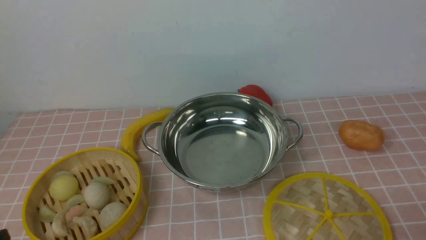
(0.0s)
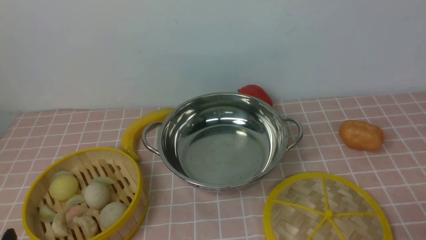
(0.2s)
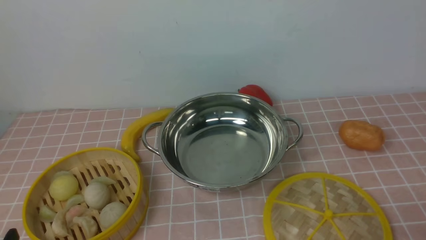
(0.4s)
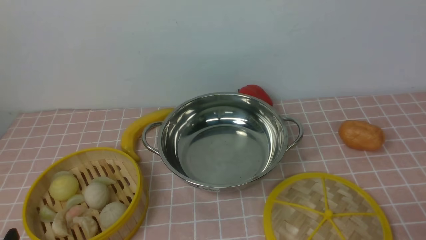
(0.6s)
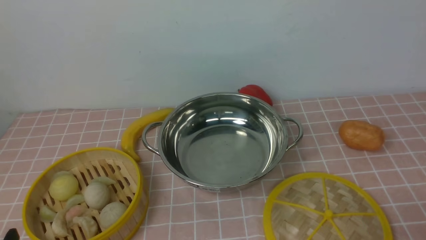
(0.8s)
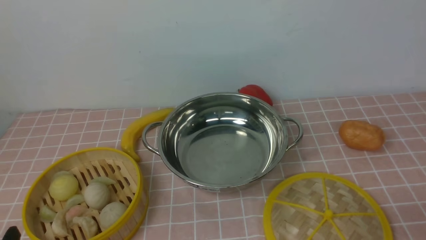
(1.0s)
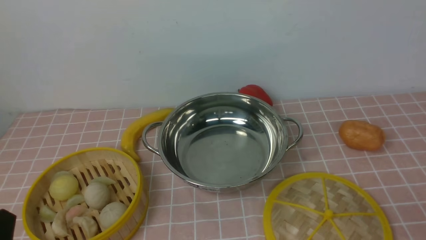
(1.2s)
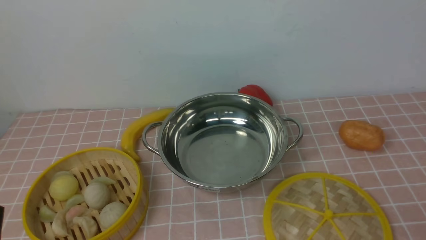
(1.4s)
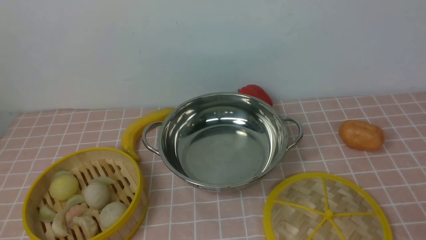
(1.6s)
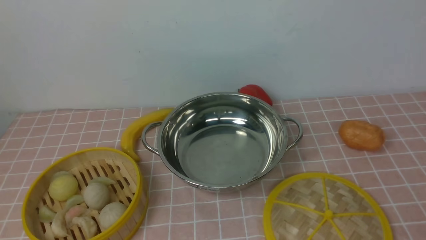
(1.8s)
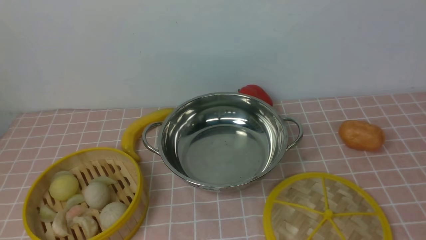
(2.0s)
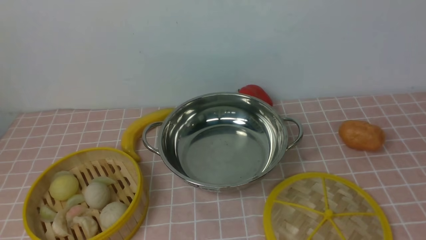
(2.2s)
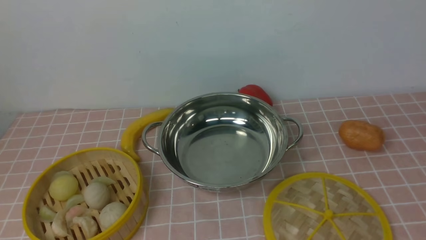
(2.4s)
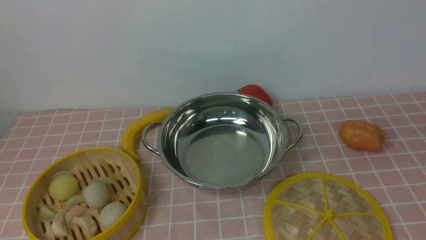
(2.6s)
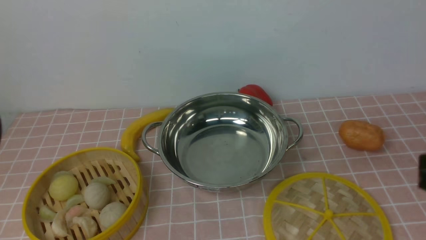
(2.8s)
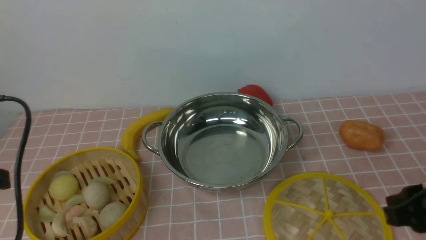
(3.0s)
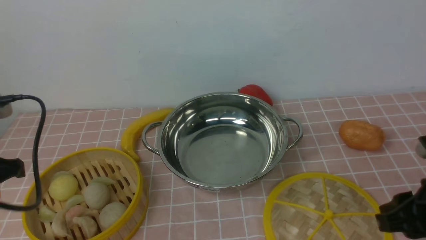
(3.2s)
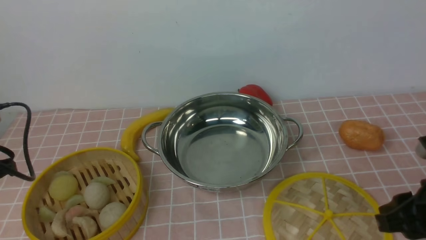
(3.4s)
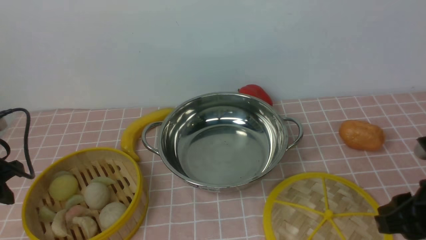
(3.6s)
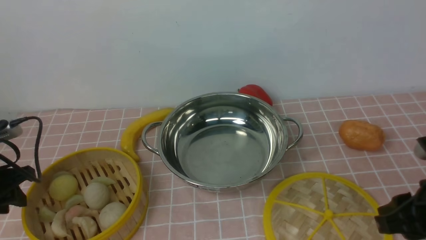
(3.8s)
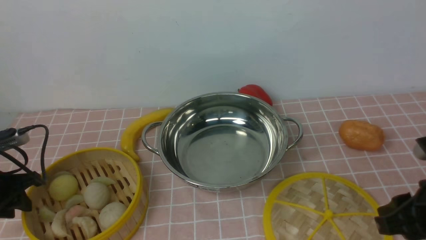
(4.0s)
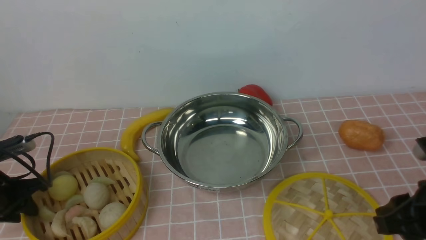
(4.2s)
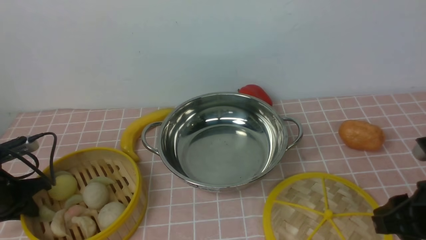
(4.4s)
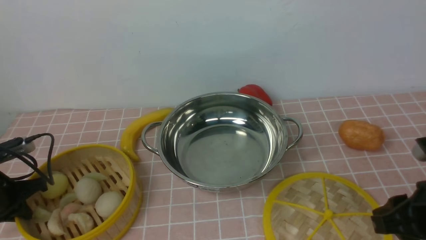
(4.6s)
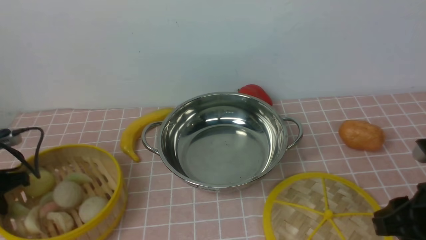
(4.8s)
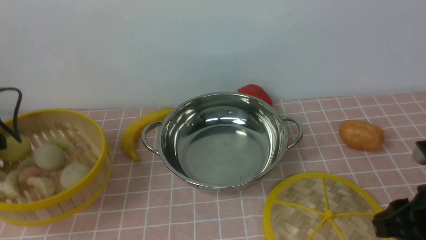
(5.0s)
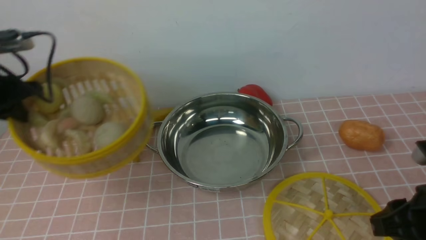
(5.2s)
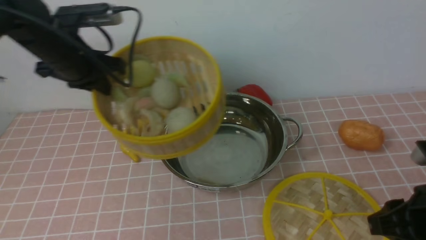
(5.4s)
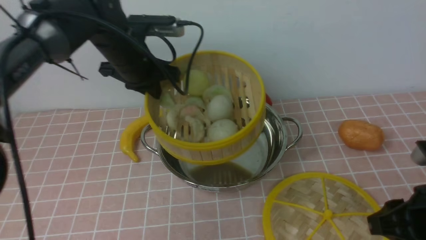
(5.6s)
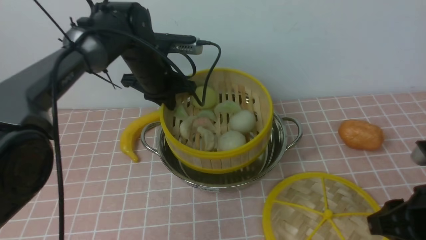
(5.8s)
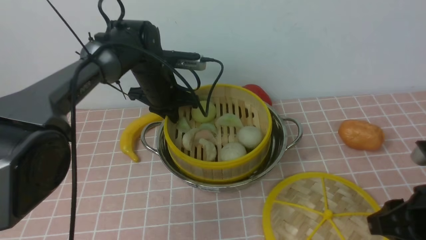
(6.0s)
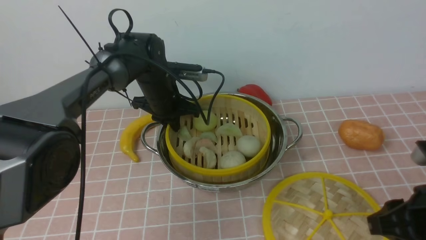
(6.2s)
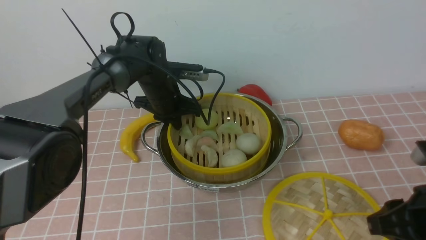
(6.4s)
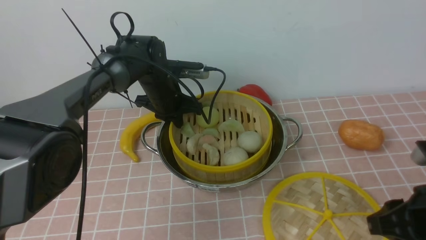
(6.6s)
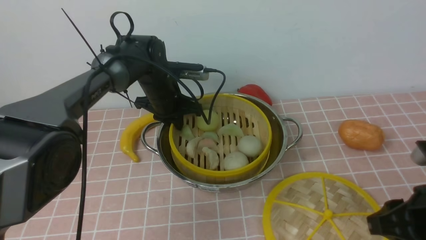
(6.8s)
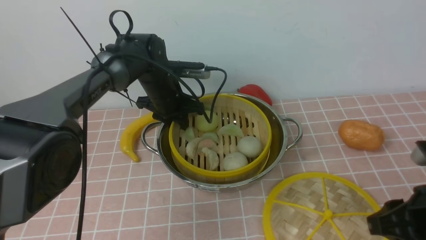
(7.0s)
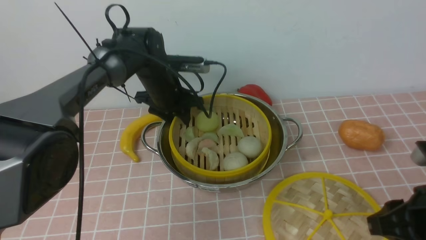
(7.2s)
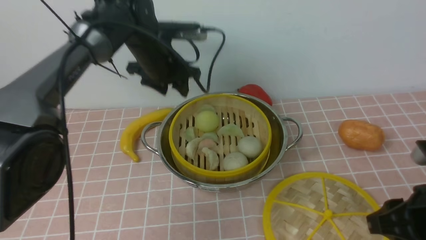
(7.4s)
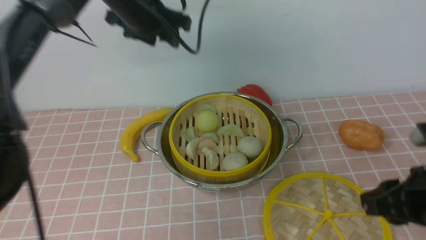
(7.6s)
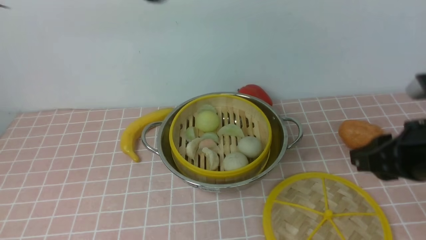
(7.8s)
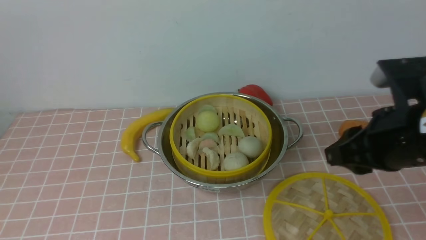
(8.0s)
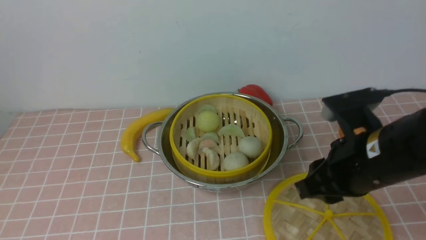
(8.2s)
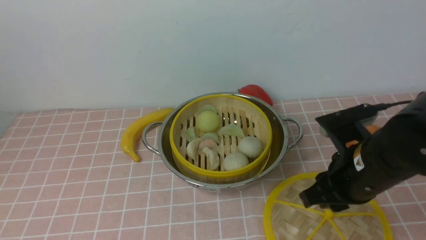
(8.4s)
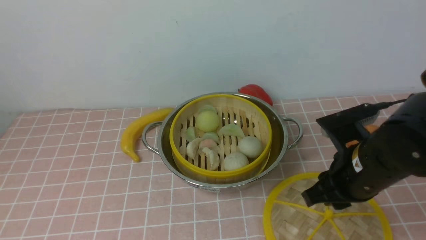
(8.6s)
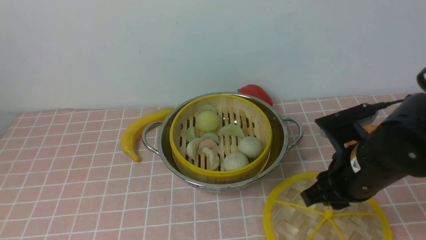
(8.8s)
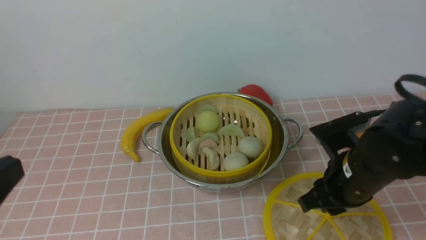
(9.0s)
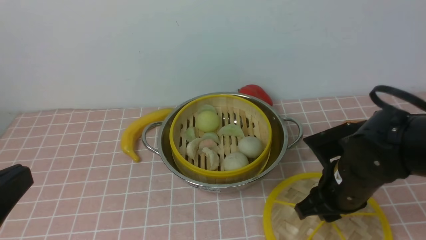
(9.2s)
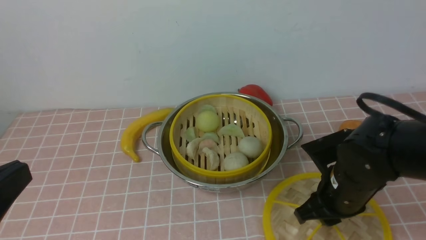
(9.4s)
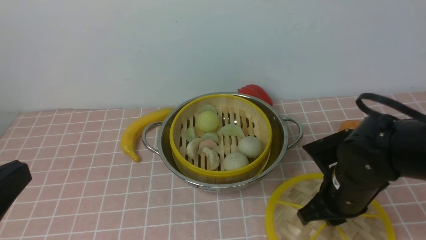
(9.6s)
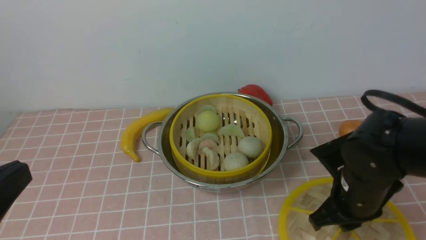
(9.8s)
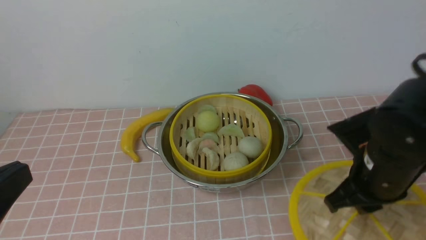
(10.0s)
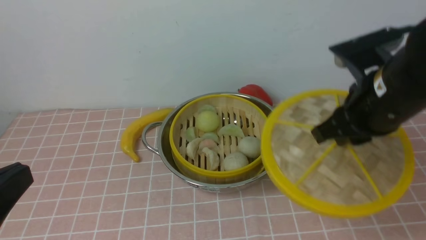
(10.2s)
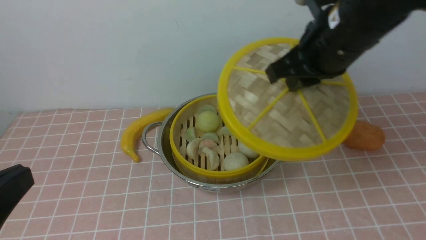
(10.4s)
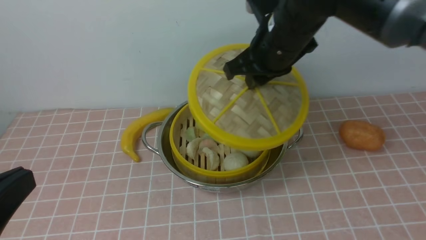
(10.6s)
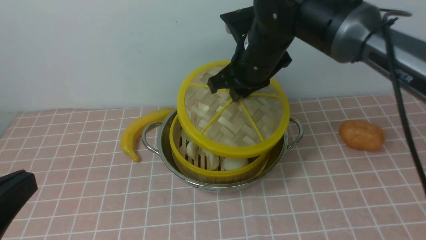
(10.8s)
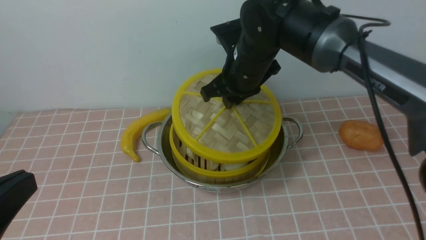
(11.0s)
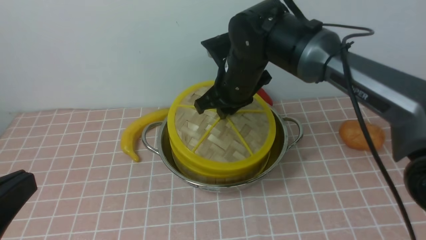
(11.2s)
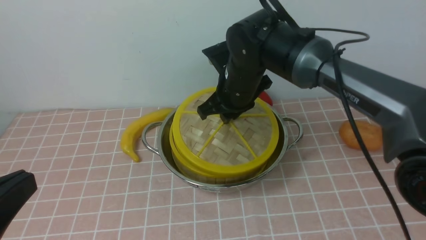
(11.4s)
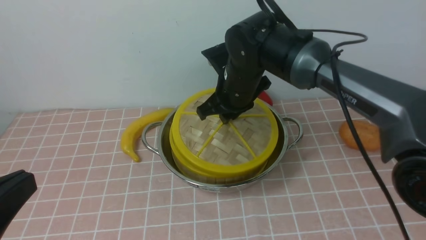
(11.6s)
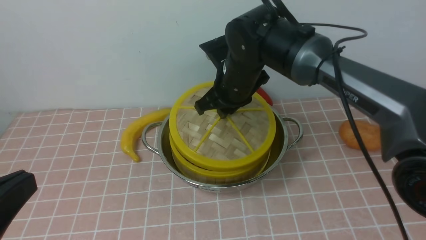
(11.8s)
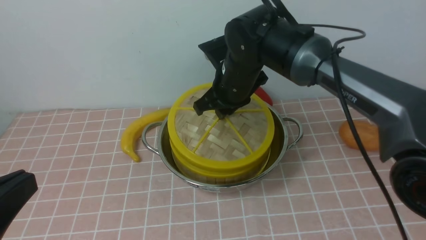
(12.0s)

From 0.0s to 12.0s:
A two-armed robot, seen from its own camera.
Task of the whole recording: place the steamer in the pot on the pink tablecloth, and put the lid on the steamer.
Step, from 0.0s to 4.8s: use the left arm to lift the steamer closest to it.
Step, from 5.0s to 7.2s: use the left arm to put the steamer into the iron steamer pot in the middle.
Step, from 7.4s to 9.8s: use the right arm to lift the lid of the steamer.
From 1.6s to 3.0s: The right gripper travels forward and to the left by some 10 cm, and travels upward and back again, approximately 15 cm each way. Meanwhile the left gripper is displaced forward and upward by roughly 15 cm.
From 3.0s to 4.4s: The left gripper is displaced downward, forward and to the left by some 25 cm, and closes up.
From 4.4s to 6.0s: The left gripper is displaced to the right and forward by some 30 cm.
From 6.0s to 7.6s: The left gripper is displaced upward by roughly 20 cm, and opens.
From 7.6s to 9.0s: The left gripper travels backward by roughly 35 cm, and closes up; the right gripper moves to the left, forward and downward, some 10 cm.
From 9.0s to 10.4s: The right gripper shifts roughly 15 cm upward and forward.
From 10.4s to 12.0s: The right gripper goes approximately 15 cm downward, to the left and forward.

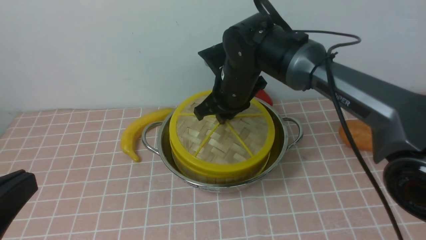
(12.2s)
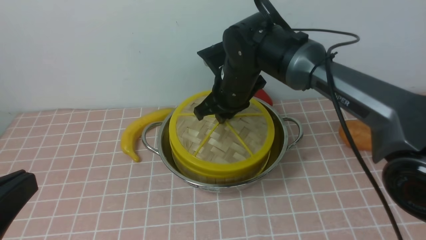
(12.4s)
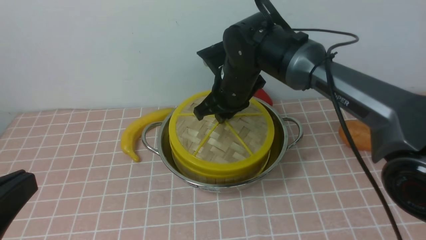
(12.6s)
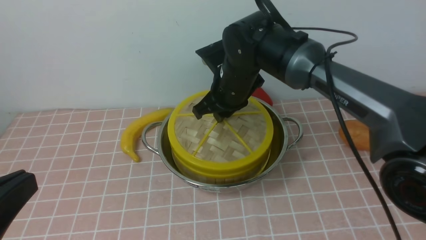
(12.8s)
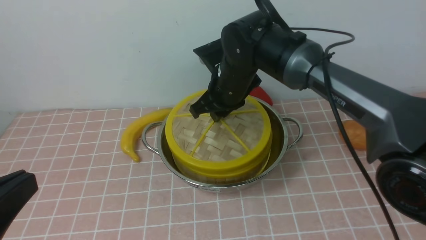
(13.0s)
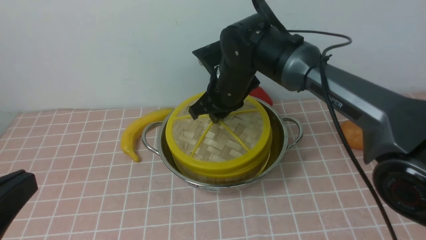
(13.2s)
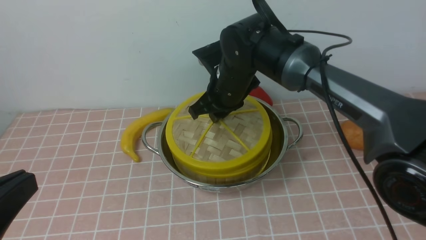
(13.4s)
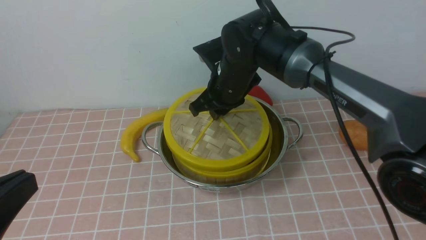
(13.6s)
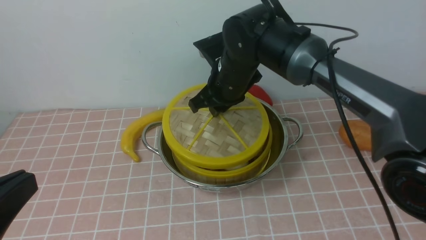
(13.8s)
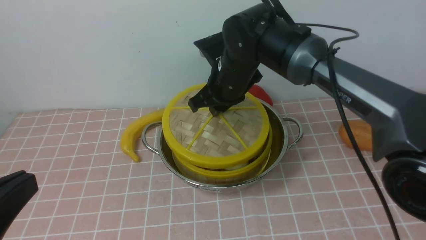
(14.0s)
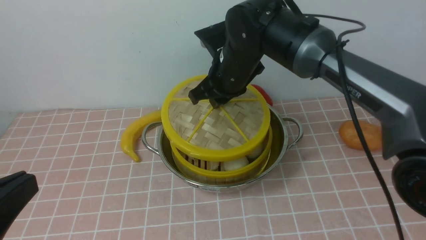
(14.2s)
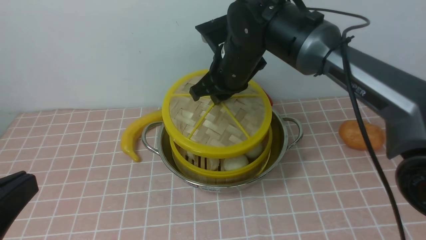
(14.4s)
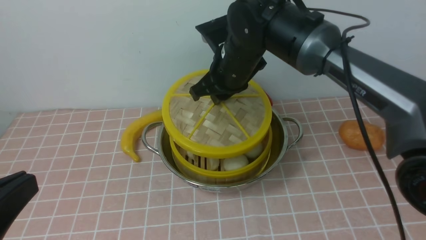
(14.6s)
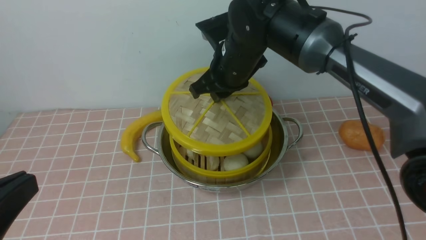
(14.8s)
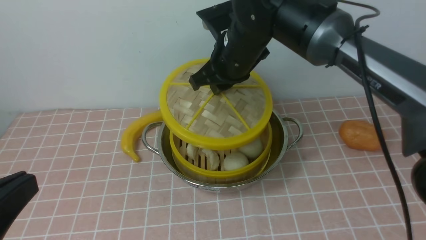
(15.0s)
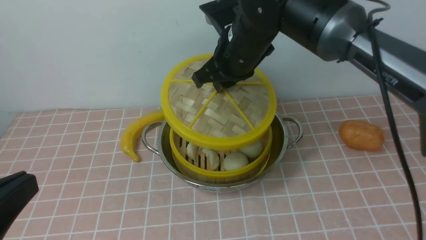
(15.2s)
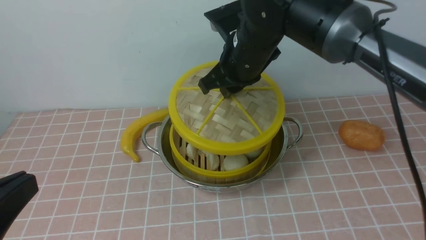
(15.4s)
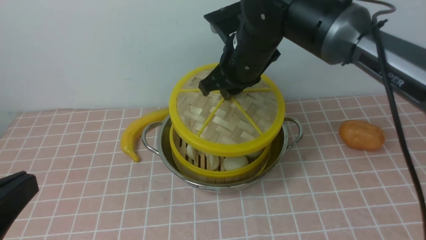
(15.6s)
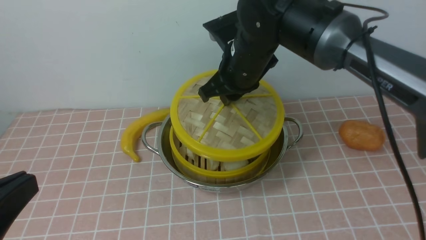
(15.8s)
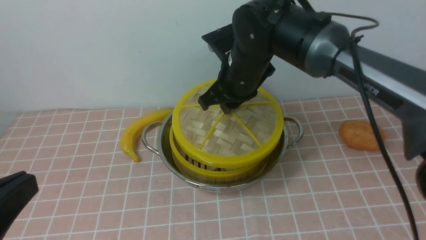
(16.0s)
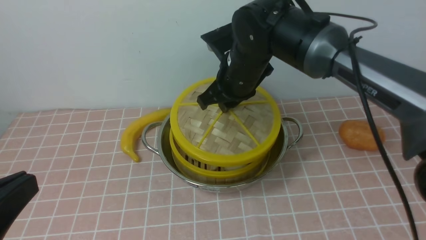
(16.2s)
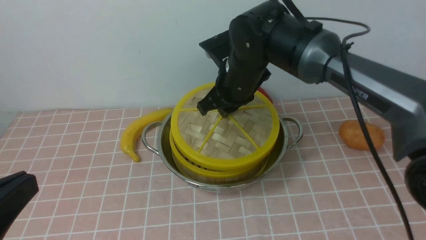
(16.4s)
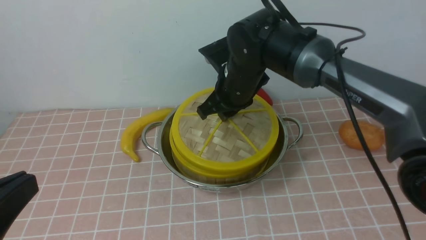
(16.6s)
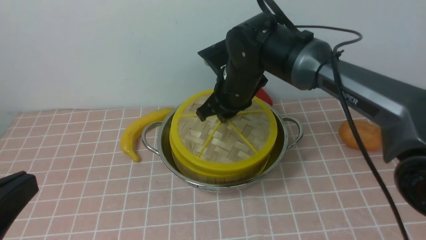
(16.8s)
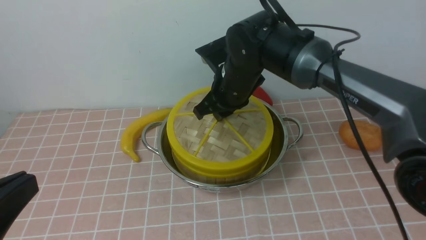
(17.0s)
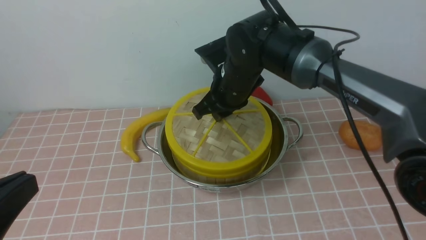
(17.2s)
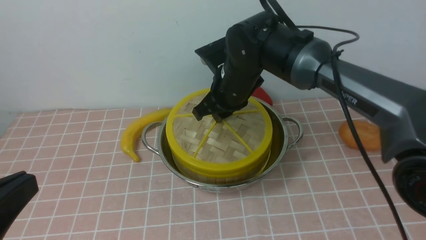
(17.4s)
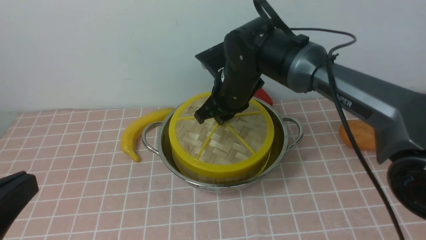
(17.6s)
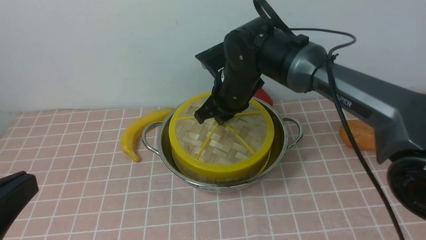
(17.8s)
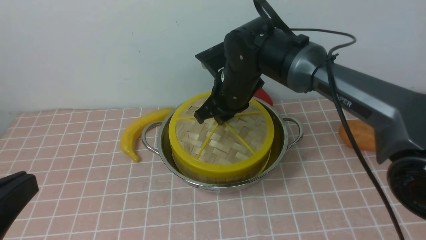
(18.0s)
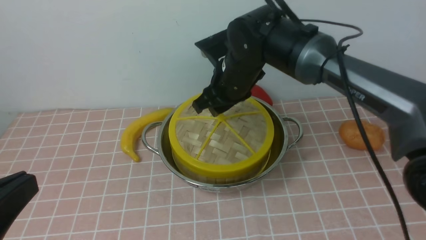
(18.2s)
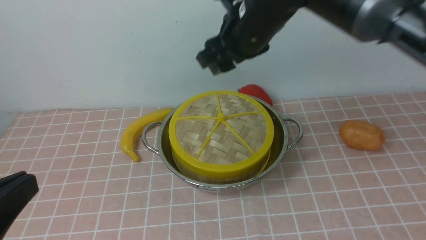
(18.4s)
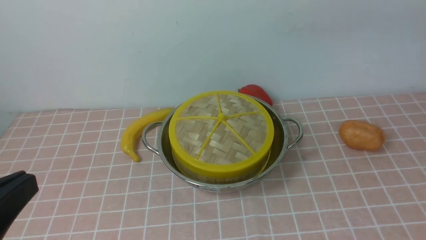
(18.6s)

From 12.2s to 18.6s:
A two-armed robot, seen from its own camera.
Task of the whole recording: place the steamer in the pot on the pink tablecloth, and put the lid on the steamer.
Step, from 12.2s to 18.2s: use the right arm to place the steamer lid on the steamer.
From 12.2s to 13.8s: Neither gripper changes place.
From 13.8s to 15.4s: The right gripper heads upward, covering approximately 5 cm.
From 15.4s to 17.0s: The right gripper goes some 5 cm downward.
From 17.0s to 18.6s: The right gripper moves upward, backward and to the right, about 30 cm, and opens.
